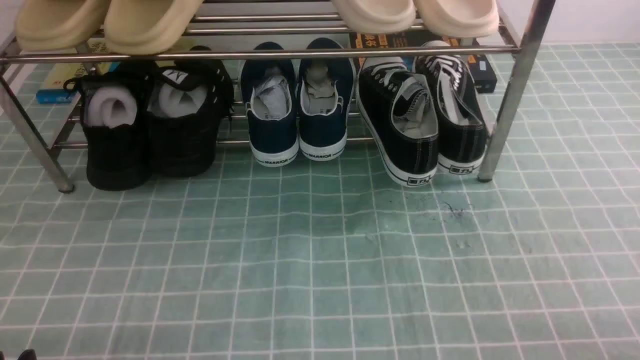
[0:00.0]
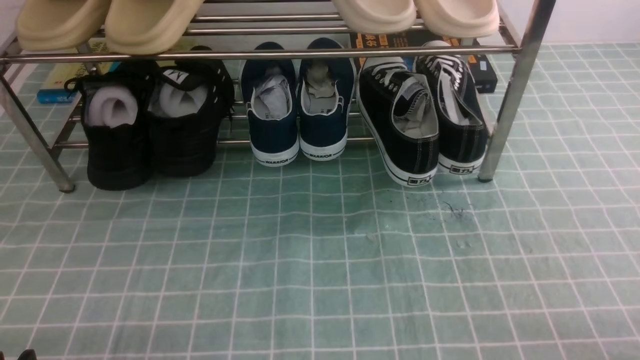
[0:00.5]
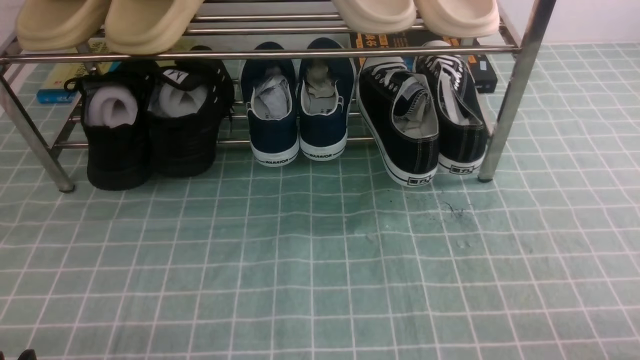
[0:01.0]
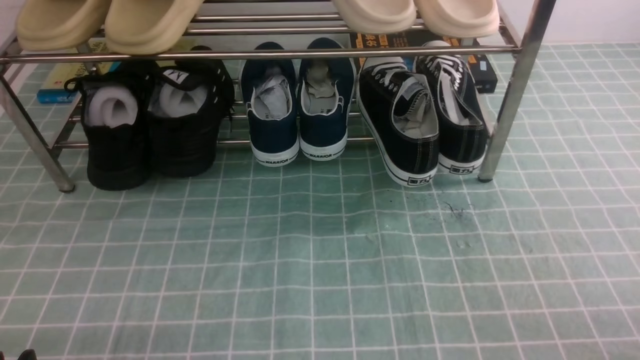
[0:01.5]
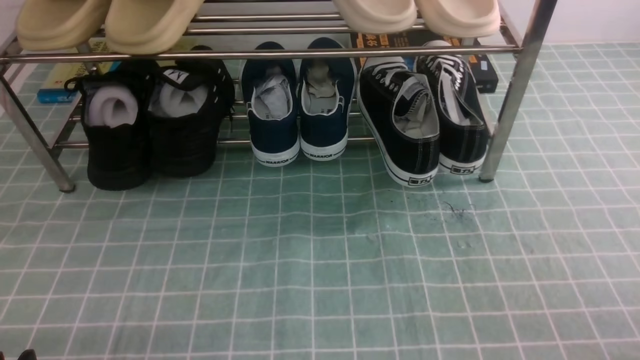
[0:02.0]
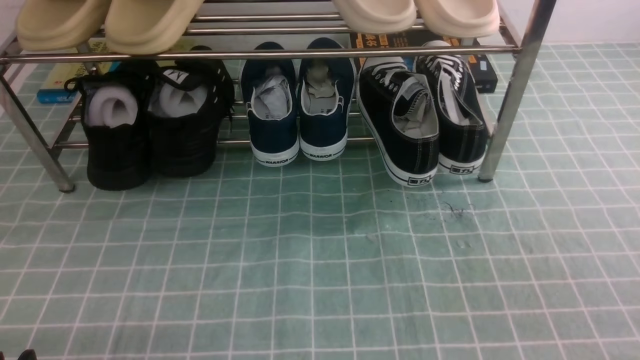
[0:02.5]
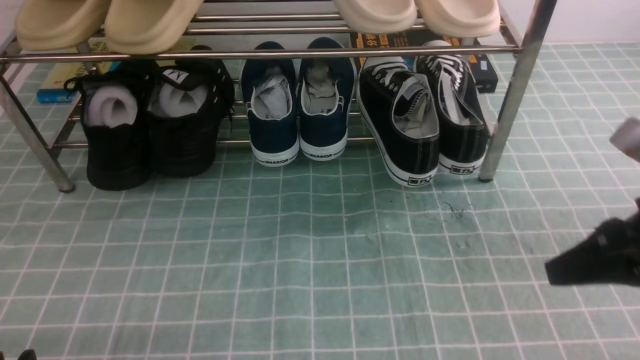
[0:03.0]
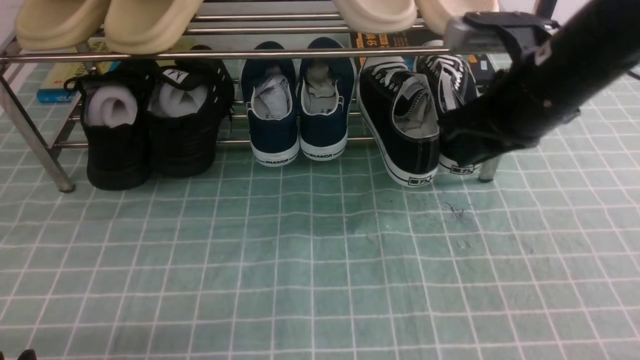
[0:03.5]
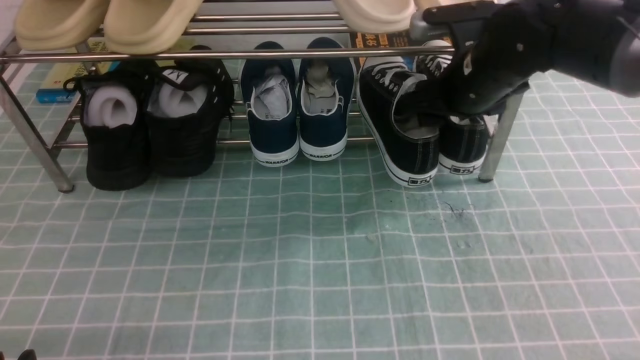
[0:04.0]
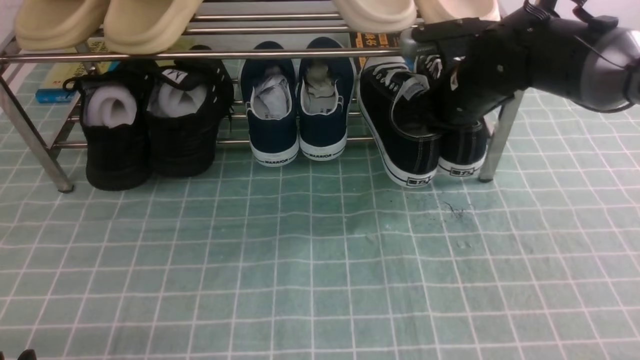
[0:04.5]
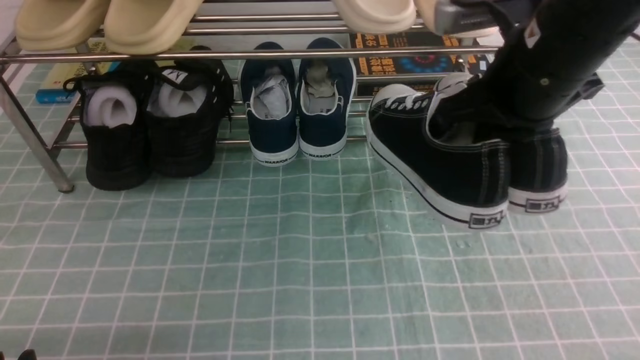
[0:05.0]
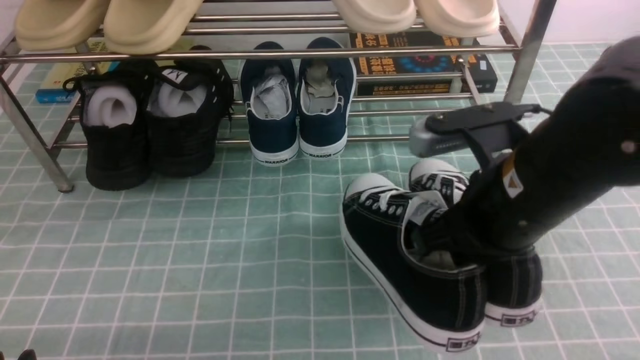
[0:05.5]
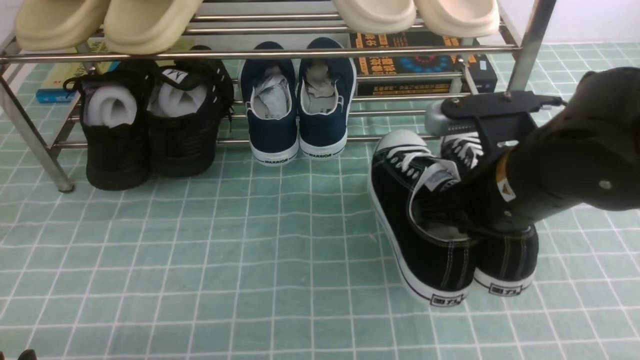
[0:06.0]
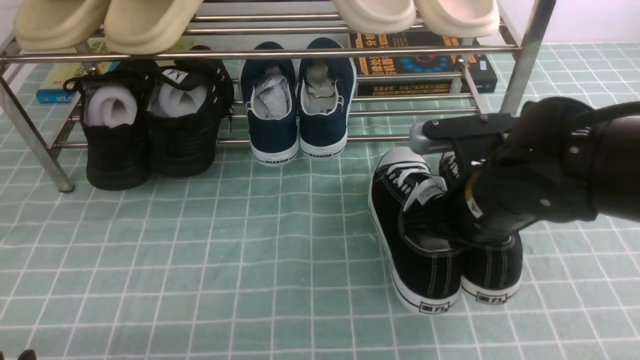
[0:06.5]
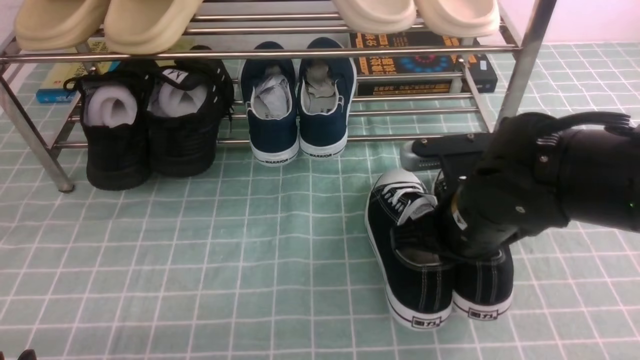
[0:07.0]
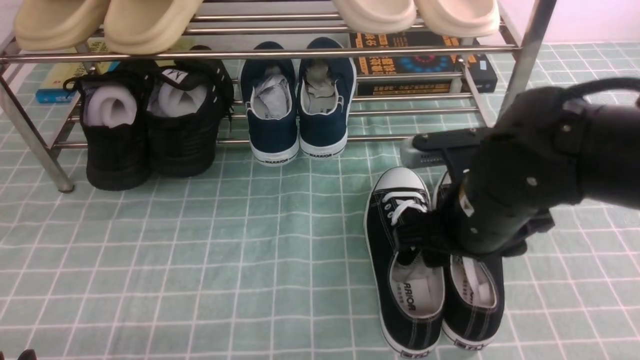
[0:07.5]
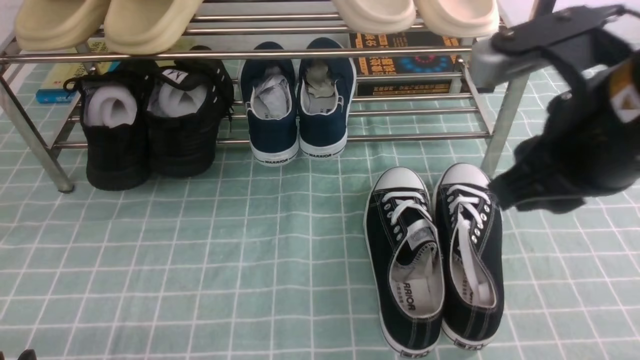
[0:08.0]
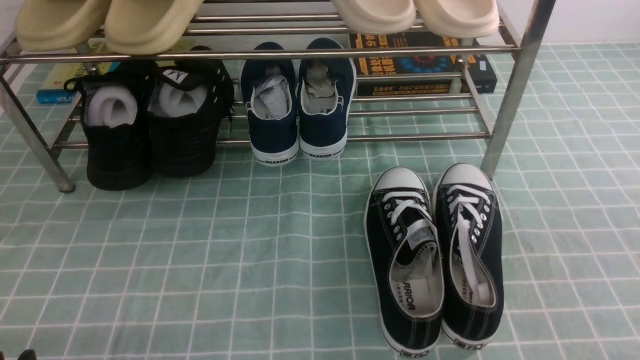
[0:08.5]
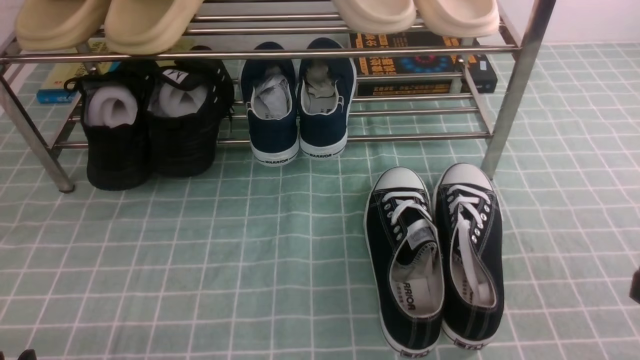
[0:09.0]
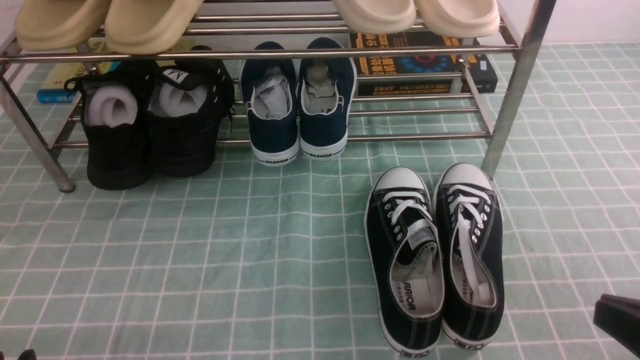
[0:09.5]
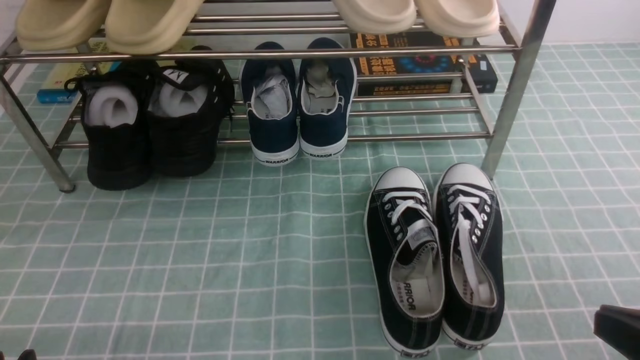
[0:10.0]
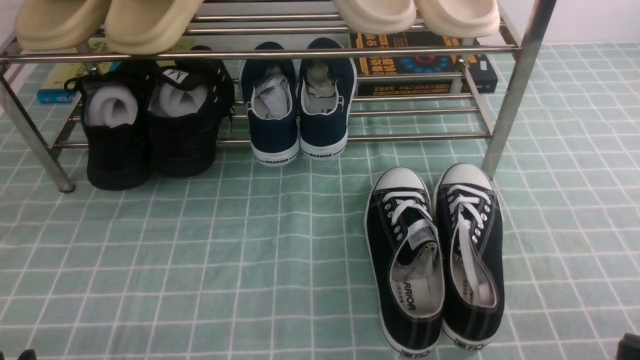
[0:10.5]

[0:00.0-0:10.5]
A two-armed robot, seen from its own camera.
Step, 0:00.0 to 0:04.0: use the right arm to clamp a shoe on the right side of the shoe rack.
Step, 0:04.5 to 0:07.5: use the right arm to take out the clamped shoe from the shoe rack and put it down.
0:02.0 to 0:04.0: The right gripper heads forward and to the left, covering about 40 cm, and opens its fingers.
0:04.0 to 0:06.5: The right gripper is displaced backward by approximately 15 cm, and closes up.
0:06.5 to 0:08.5: The right gripper travels backward, upward and to the right by approximately 30 cm, and opens, then closes once more.

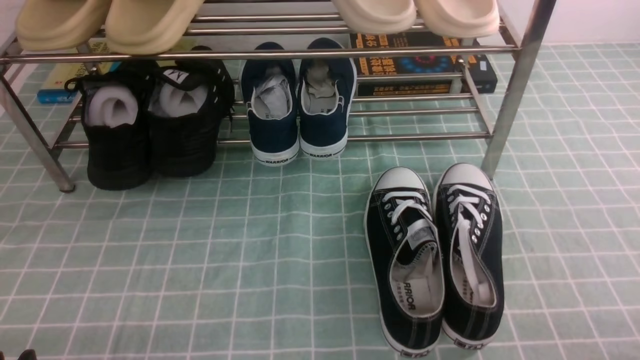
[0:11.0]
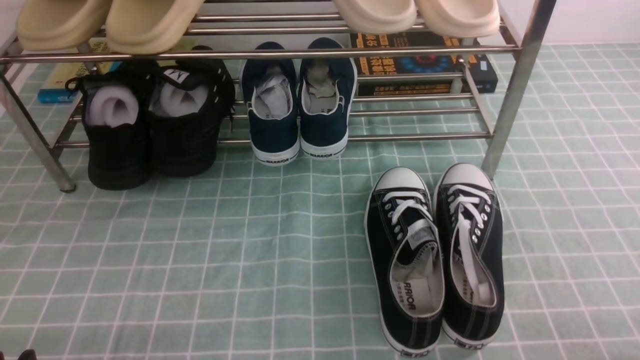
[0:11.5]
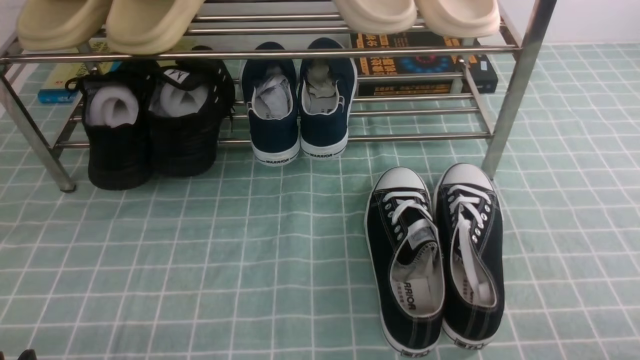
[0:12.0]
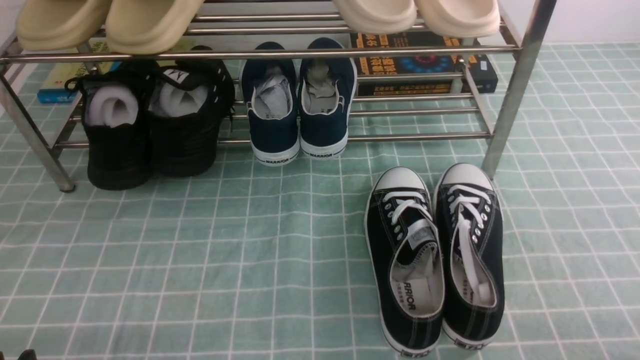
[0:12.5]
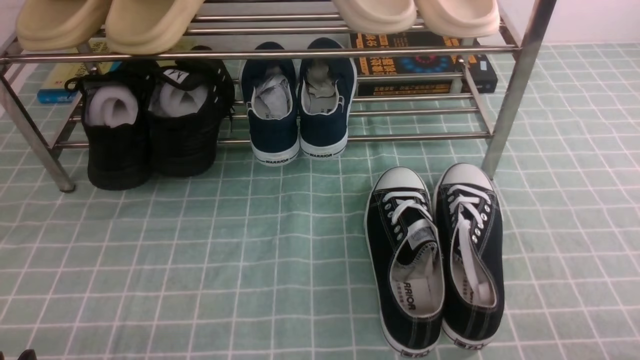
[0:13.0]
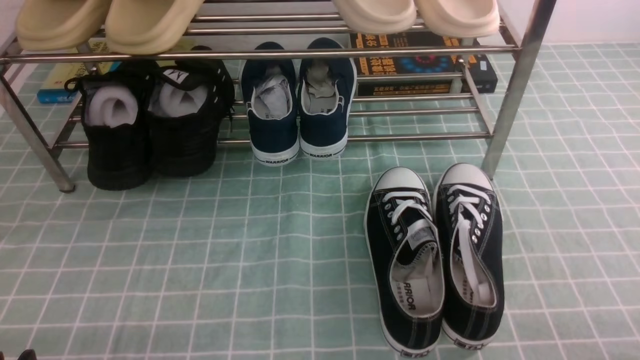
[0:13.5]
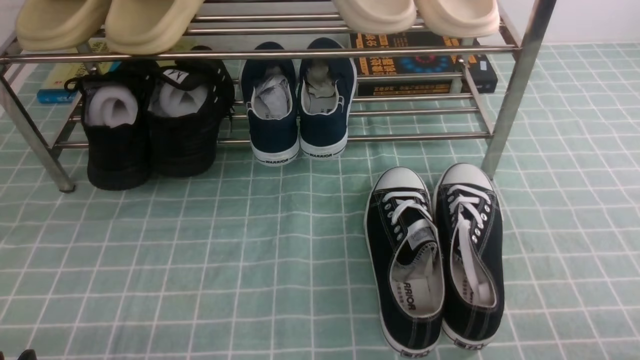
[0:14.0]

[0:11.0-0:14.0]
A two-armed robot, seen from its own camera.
0:12.5 to 0:14.0: Both grippers stay about where they are.
